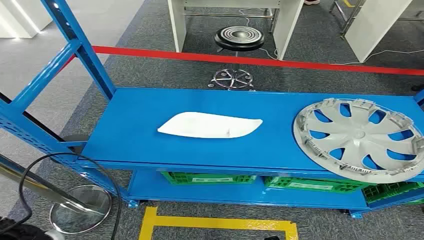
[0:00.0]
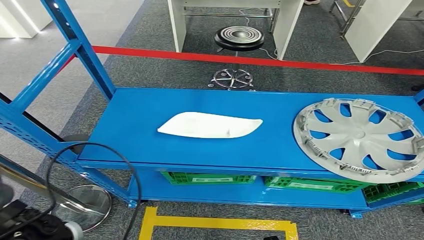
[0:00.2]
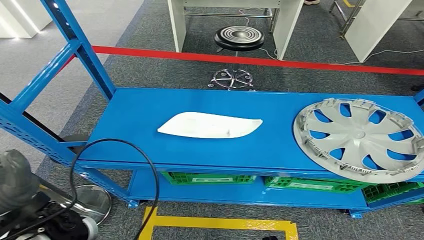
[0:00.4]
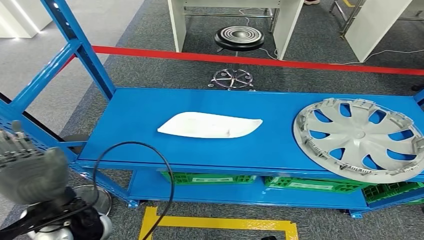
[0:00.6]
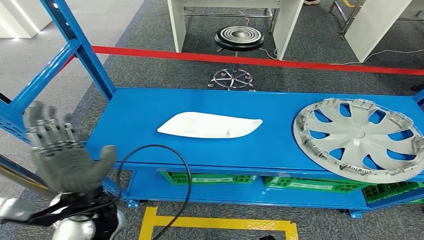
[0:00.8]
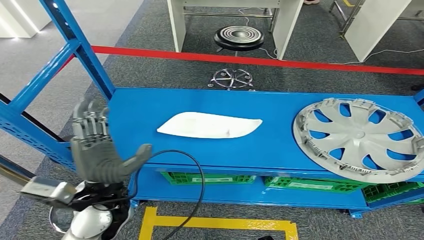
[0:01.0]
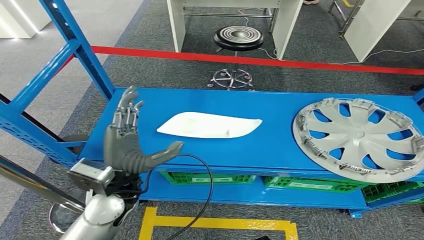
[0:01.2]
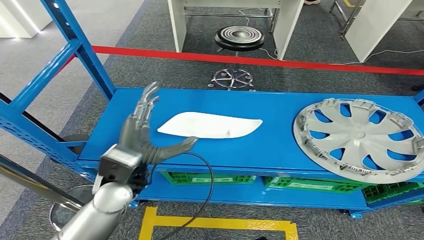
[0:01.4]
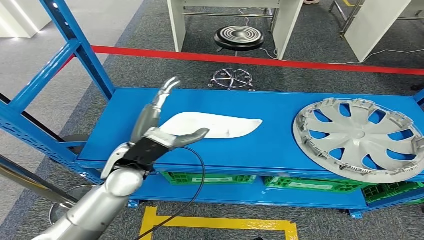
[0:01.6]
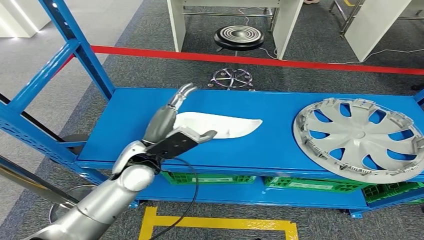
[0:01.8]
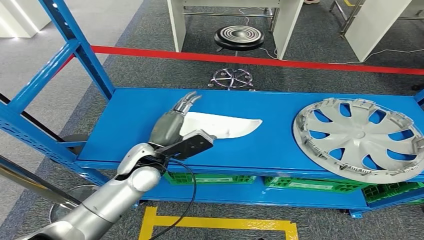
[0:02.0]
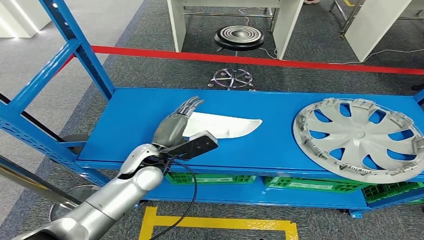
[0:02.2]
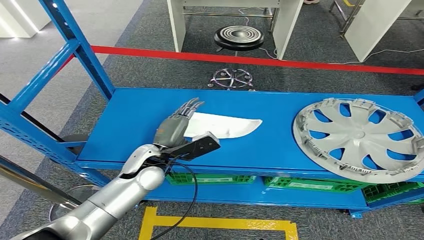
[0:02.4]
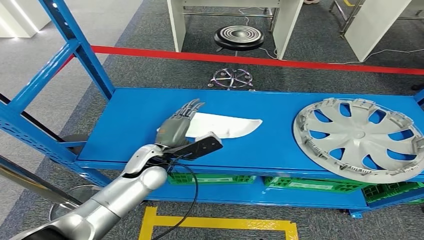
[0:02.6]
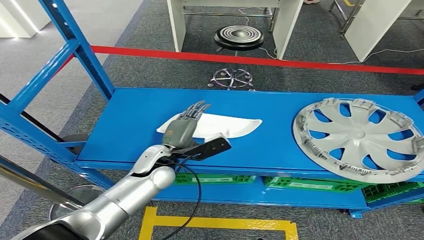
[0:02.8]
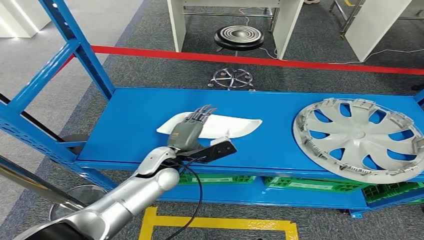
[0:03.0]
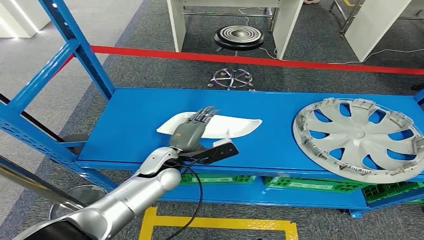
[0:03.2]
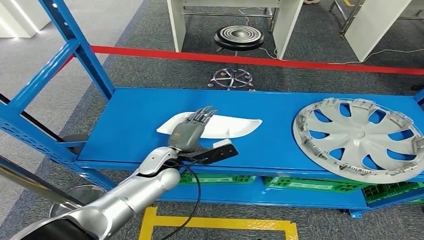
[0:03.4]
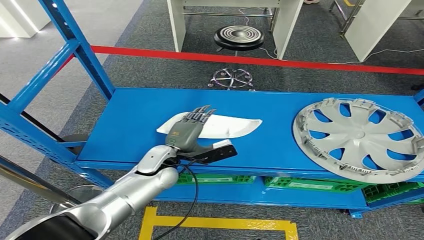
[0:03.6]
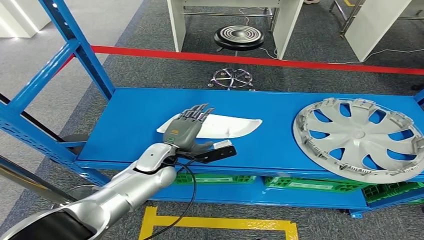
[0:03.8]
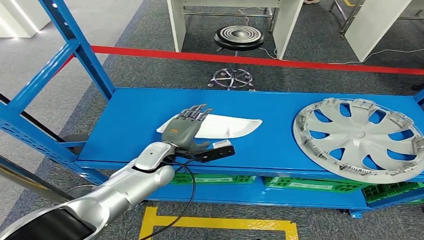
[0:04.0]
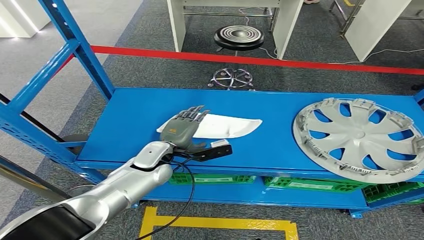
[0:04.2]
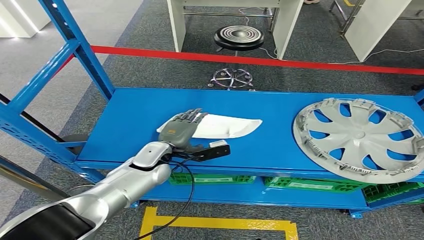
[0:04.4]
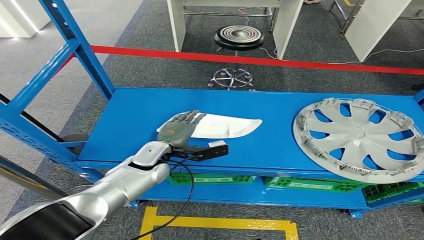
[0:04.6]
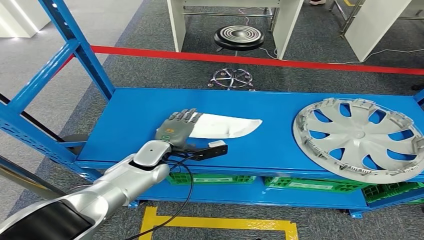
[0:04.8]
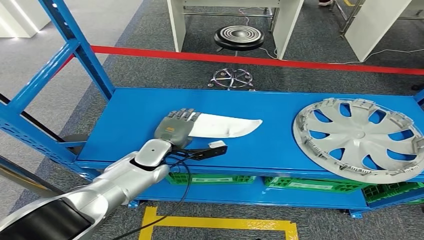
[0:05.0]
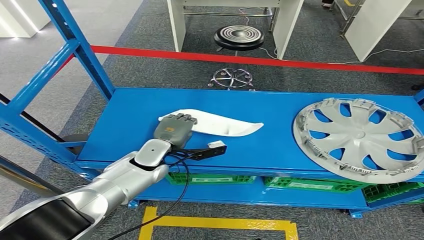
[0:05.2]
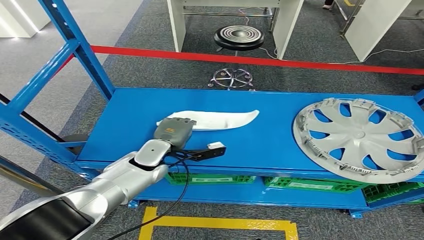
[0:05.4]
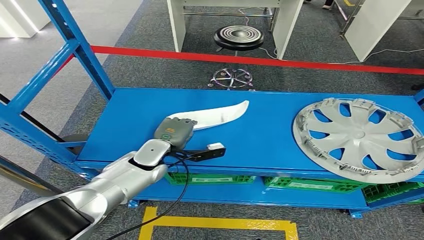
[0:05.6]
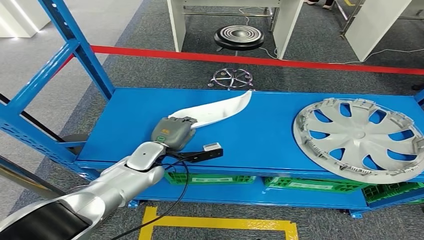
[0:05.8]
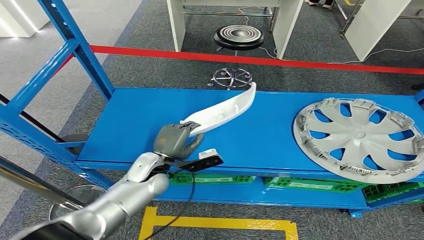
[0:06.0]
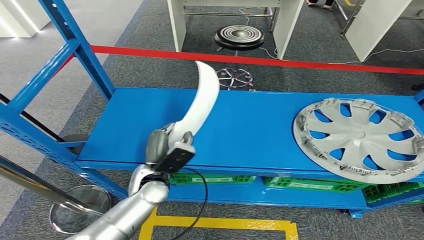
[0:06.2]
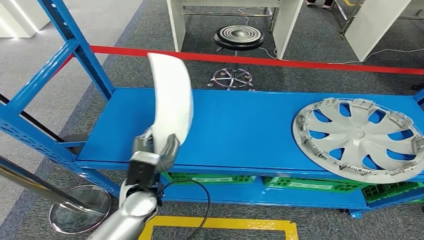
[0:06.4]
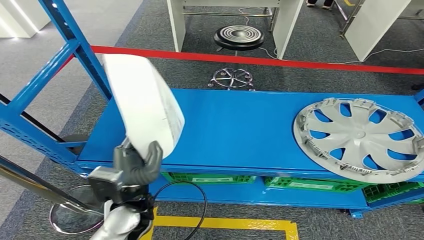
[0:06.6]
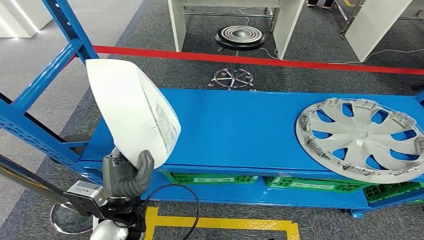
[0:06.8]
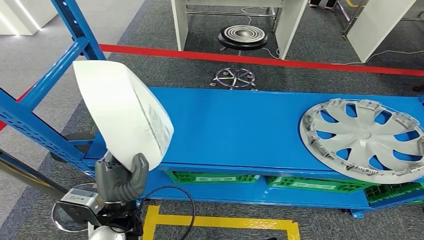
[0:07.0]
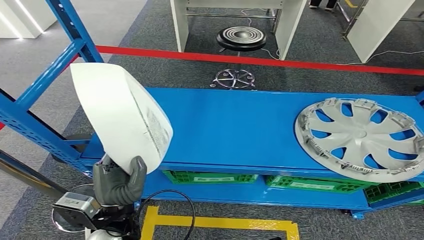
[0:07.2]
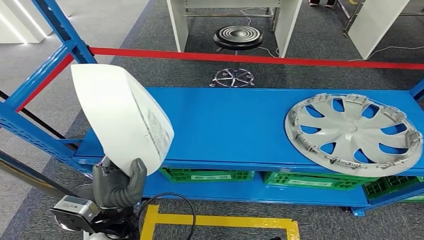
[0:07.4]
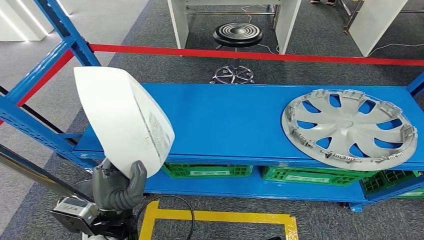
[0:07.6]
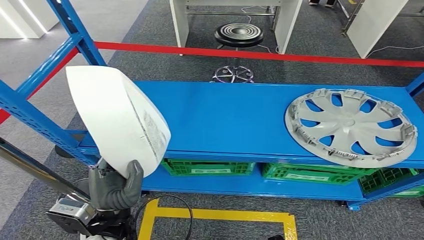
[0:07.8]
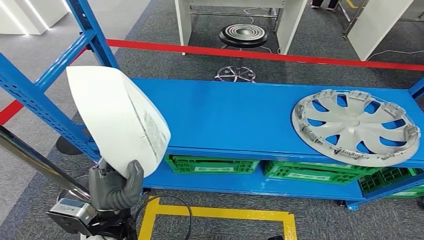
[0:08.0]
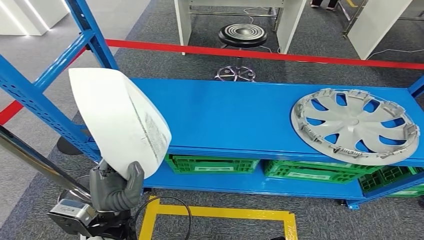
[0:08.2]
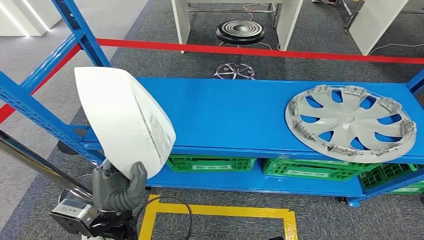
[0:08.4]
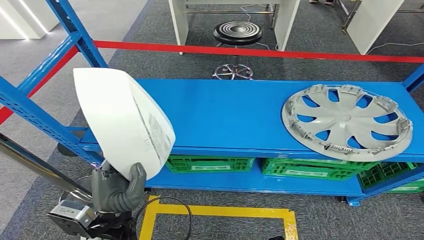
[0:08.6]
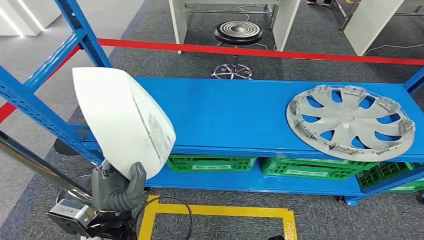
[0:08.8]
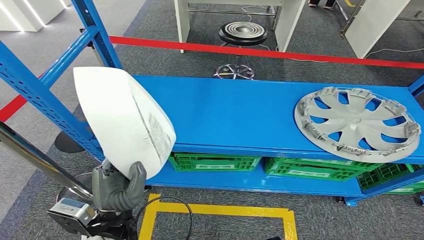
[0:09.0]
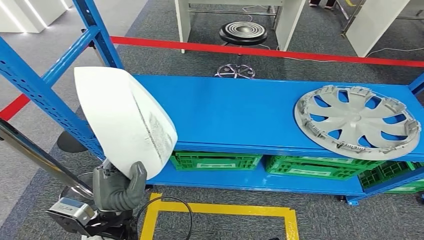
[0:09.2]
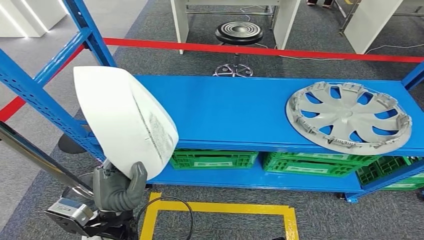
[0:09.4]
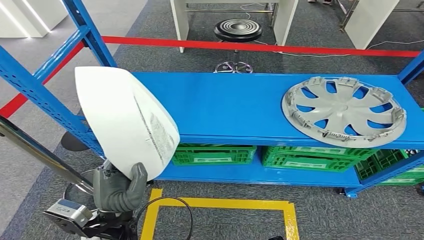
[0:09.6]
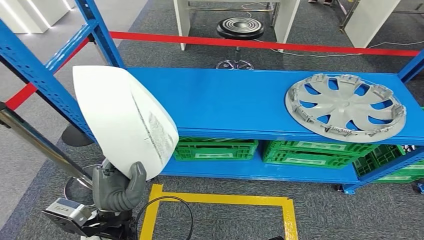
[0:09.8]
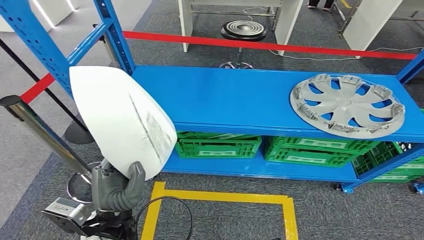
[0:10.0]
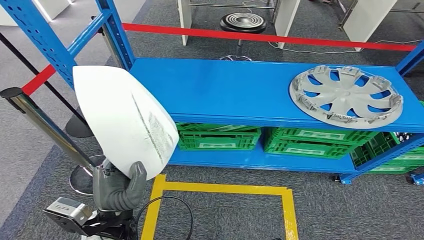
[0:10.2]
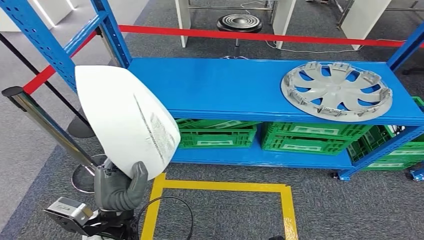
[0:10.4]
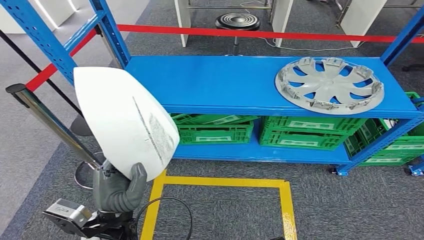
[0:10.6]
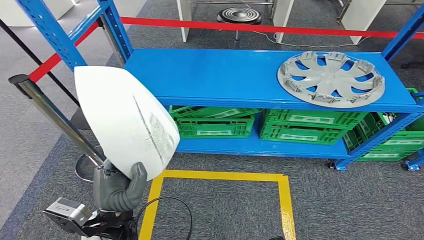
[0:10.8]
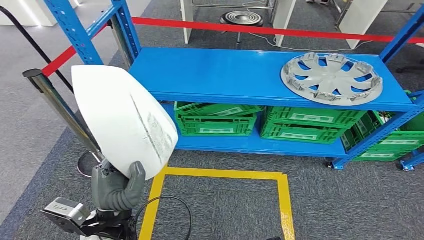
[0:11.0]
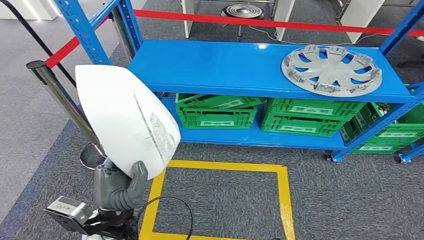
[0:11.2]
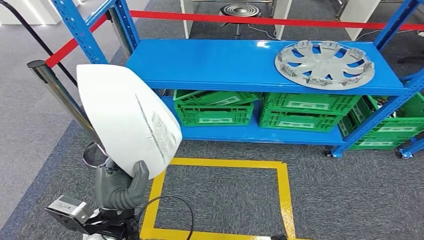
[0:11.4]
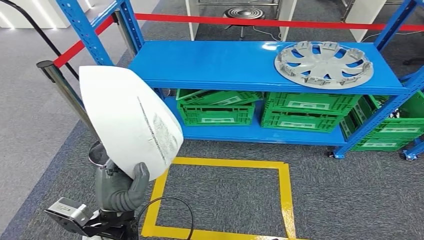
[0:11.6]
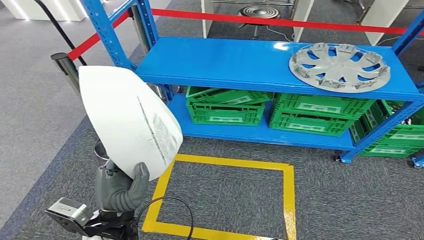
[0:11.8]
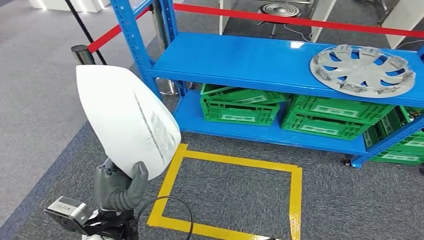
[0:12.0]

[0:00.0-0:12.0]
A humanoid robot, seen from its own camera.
Step, 0:00.0 to 0:08.6: Pick up the small component from the shelf.
0:01.6 to 0:03.0: The left hand travels downward by roughly 10 cm.

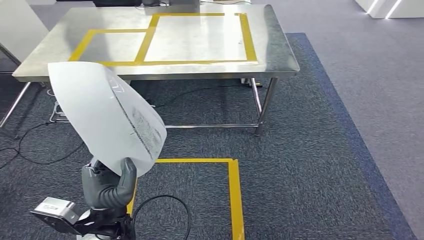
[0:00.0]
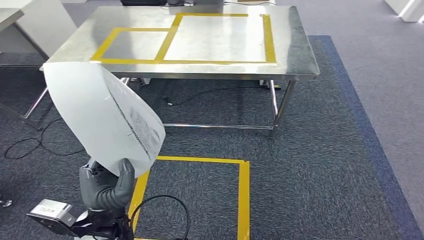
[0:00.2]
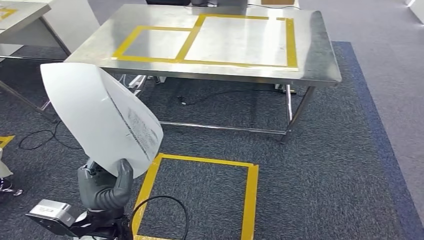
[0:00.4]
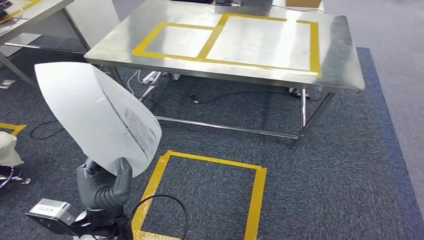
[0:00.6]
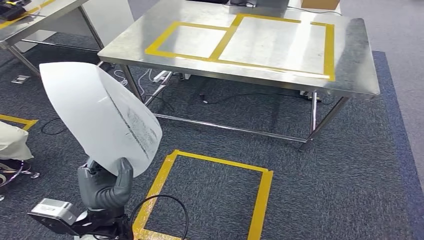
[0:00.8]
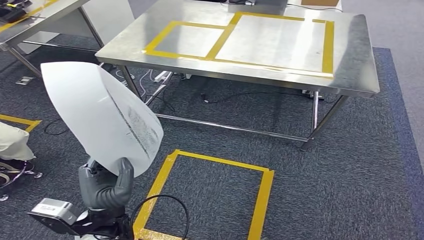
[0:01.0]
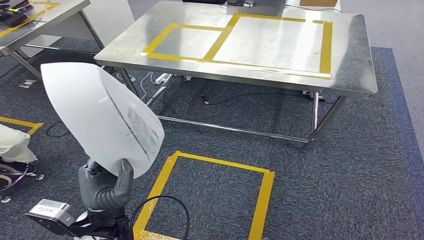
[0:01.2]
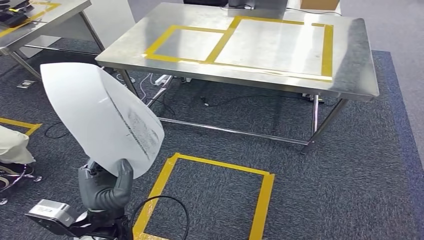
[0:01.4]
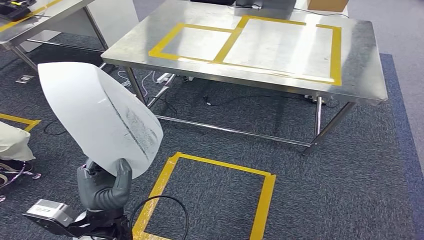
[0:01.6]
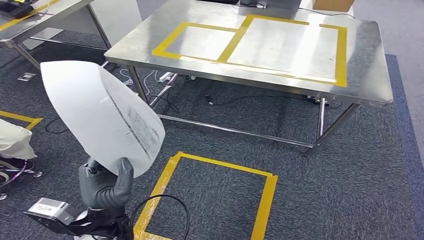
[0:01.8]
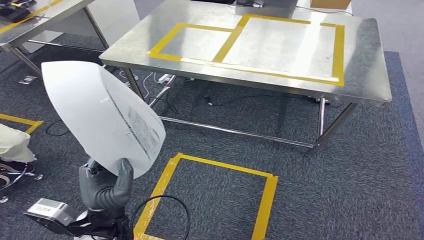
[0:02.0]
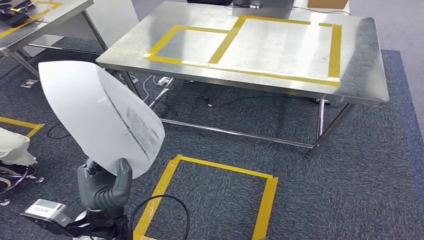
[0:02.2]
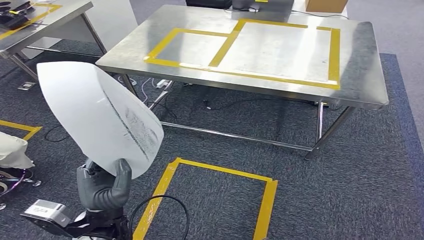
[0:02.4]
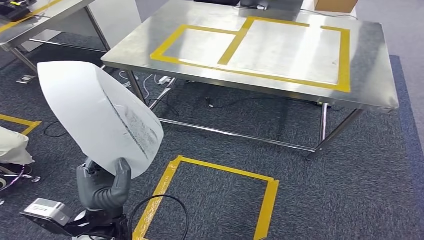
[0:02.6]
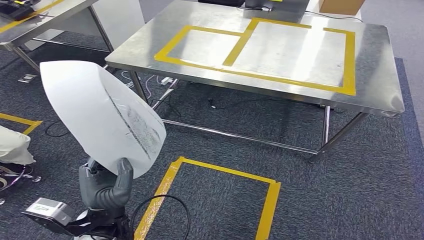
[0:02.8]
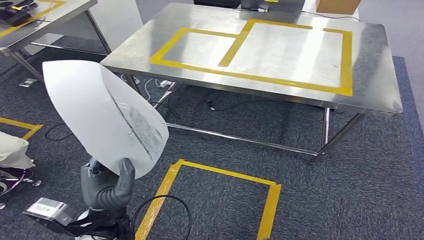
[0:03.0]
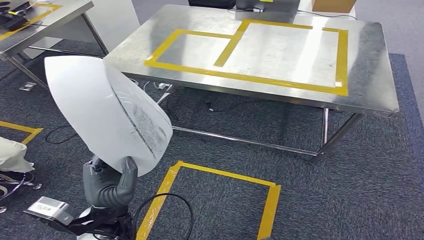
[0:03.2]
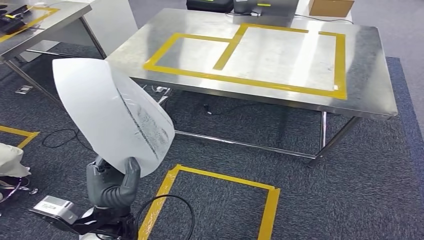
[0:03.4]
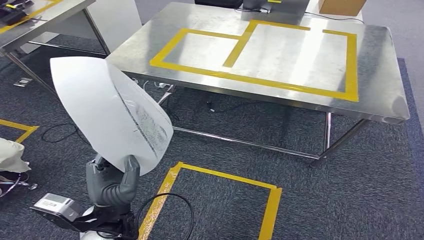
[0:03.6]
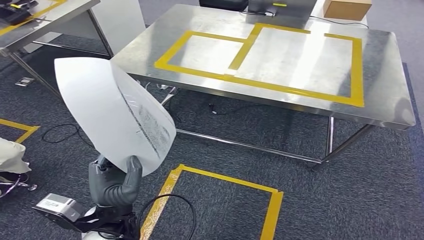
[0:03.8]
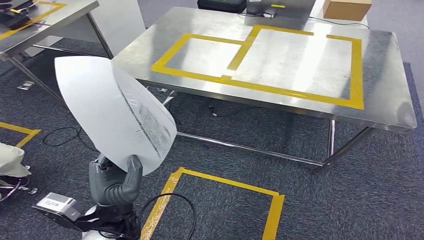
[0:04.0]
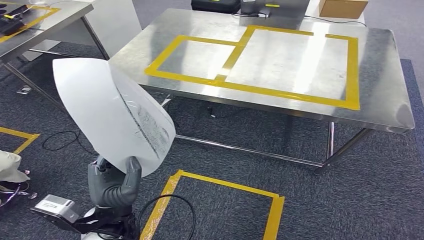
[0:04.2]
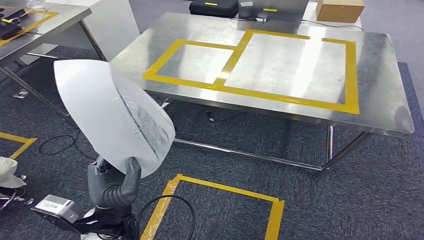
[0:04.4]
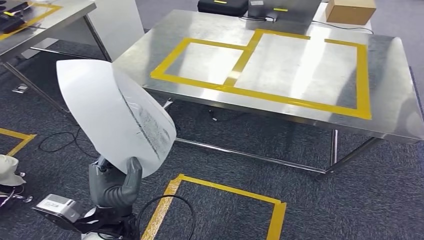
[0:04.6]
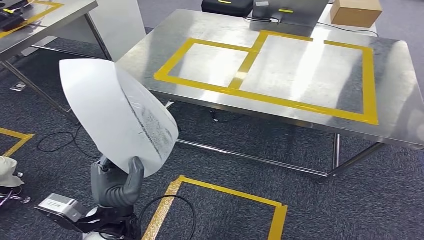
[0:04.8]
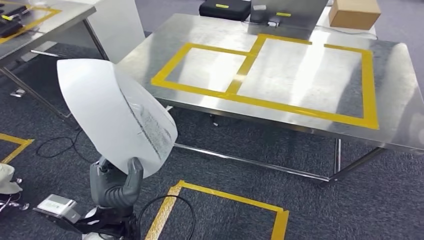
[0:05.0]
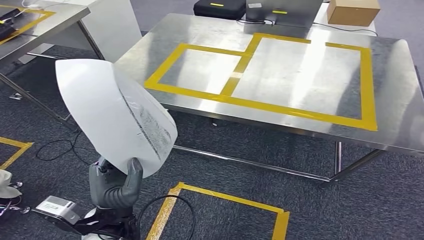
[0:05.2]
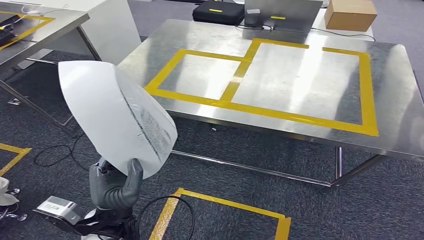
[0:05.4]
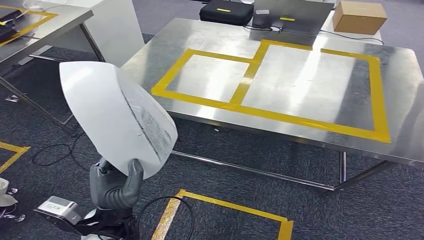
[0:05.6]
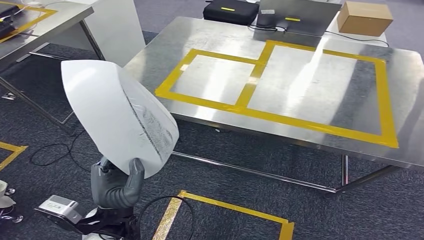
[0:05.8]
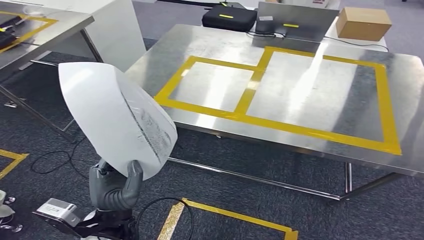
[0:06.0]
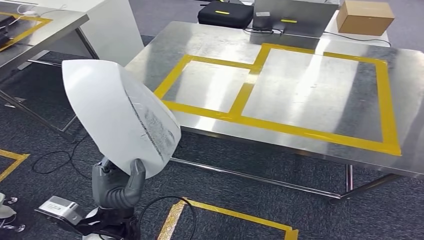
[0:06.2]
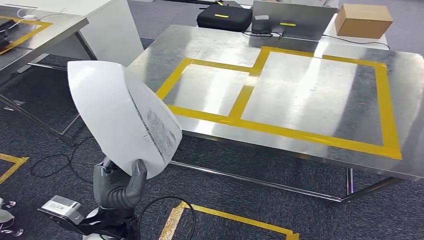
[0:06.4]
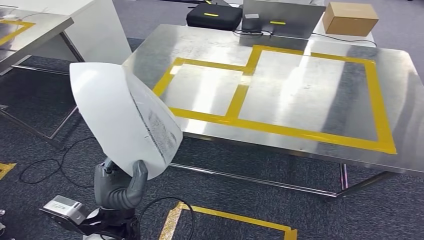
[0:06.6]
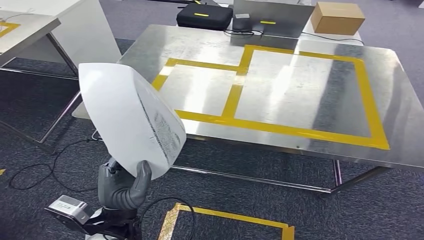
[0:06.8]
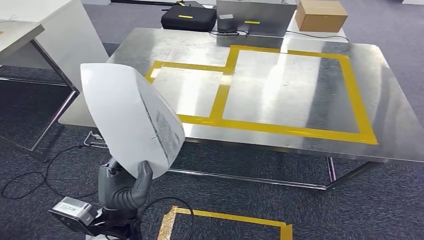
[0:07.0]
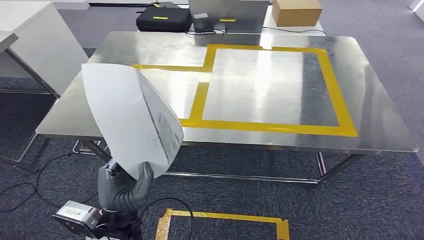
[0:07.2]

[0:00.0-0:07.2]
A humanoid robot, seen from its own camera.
Step, 0:00.0 to 0:06.0: Move the small component to the workbench.
